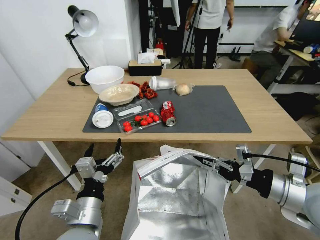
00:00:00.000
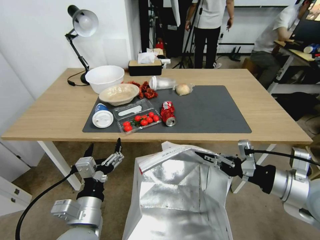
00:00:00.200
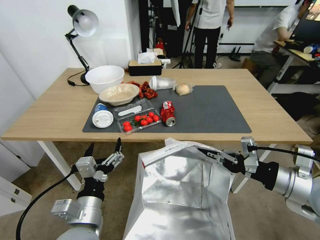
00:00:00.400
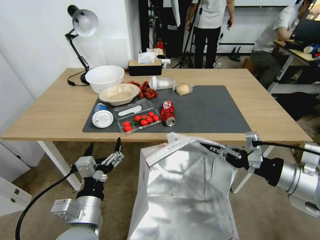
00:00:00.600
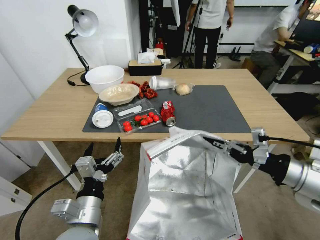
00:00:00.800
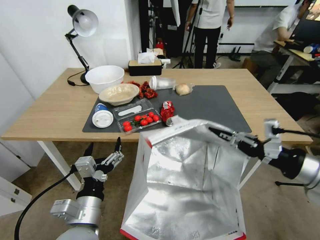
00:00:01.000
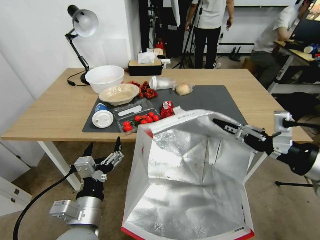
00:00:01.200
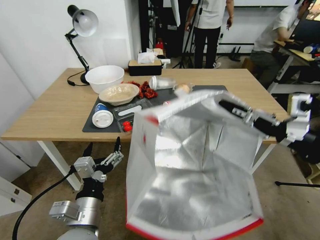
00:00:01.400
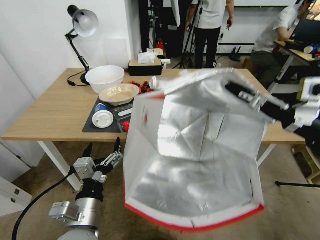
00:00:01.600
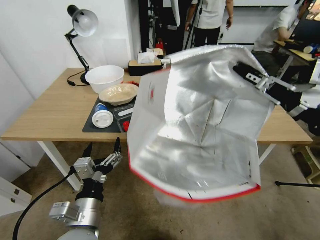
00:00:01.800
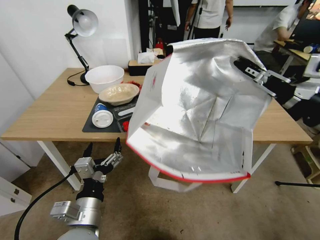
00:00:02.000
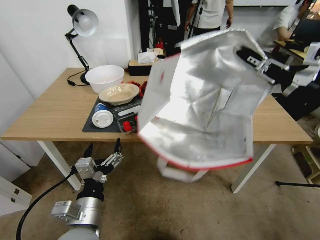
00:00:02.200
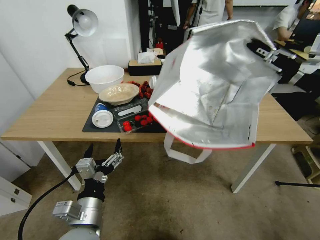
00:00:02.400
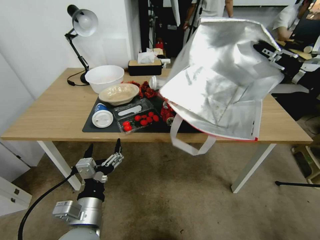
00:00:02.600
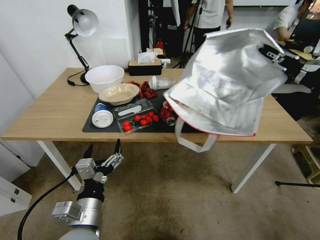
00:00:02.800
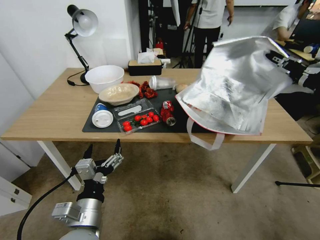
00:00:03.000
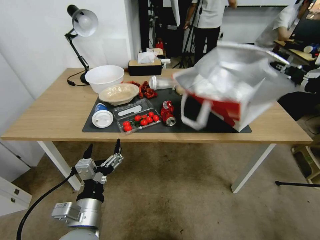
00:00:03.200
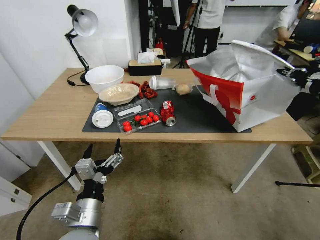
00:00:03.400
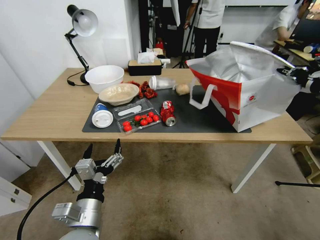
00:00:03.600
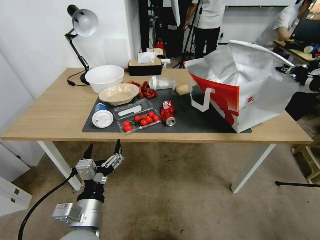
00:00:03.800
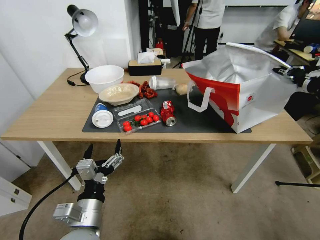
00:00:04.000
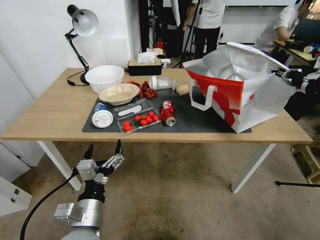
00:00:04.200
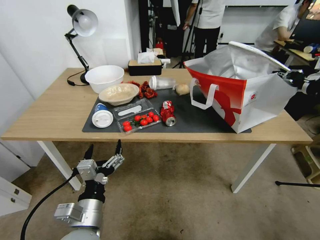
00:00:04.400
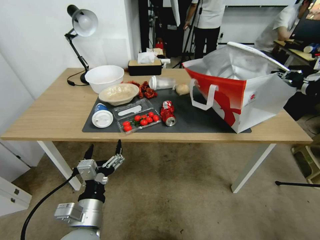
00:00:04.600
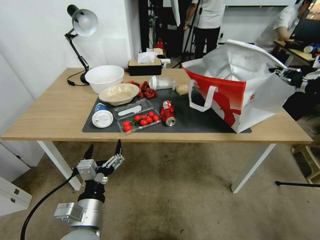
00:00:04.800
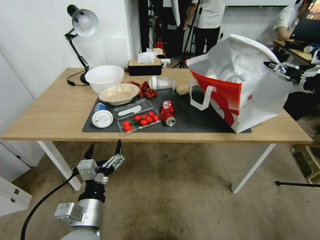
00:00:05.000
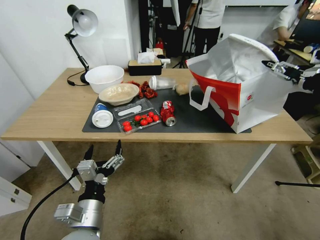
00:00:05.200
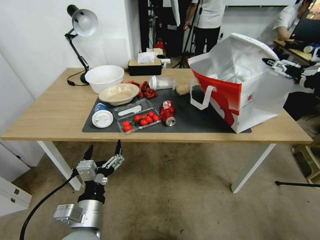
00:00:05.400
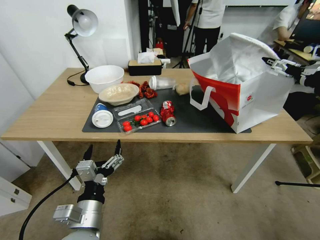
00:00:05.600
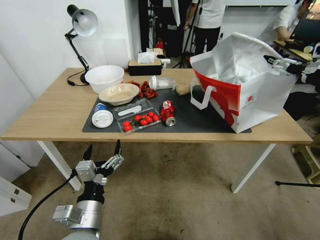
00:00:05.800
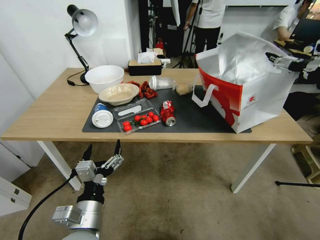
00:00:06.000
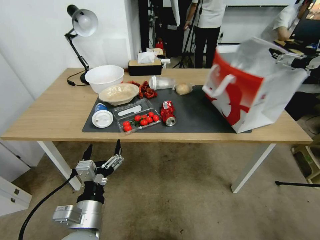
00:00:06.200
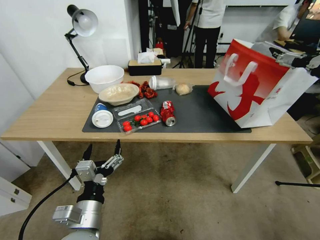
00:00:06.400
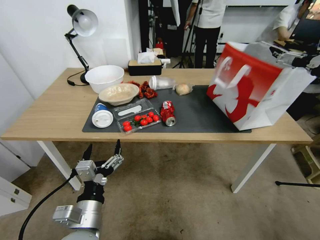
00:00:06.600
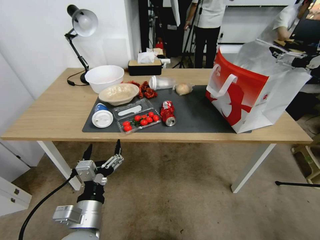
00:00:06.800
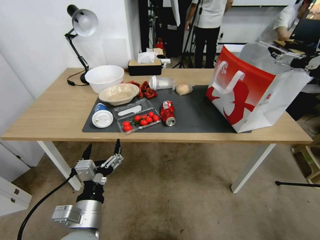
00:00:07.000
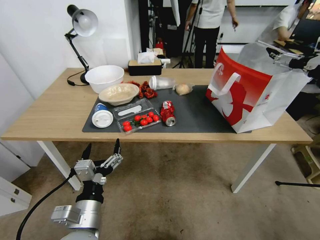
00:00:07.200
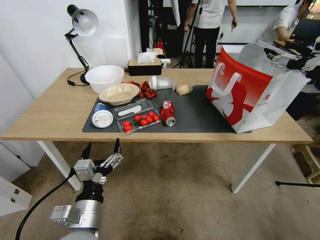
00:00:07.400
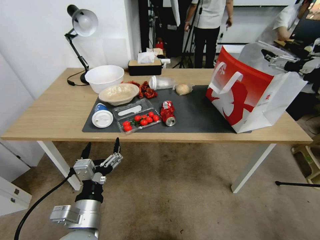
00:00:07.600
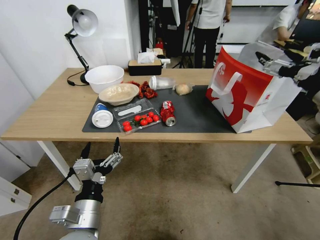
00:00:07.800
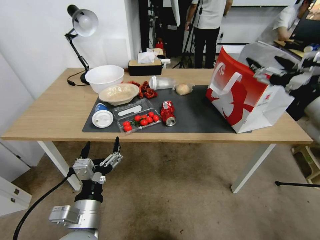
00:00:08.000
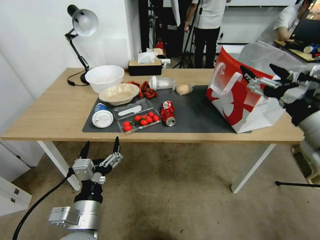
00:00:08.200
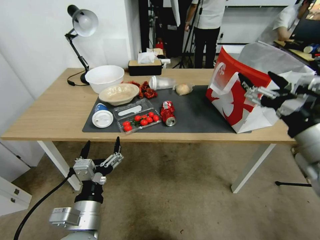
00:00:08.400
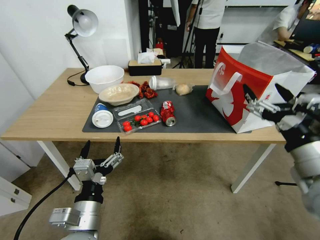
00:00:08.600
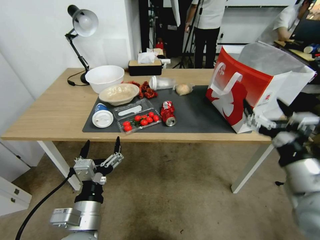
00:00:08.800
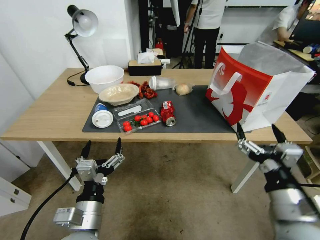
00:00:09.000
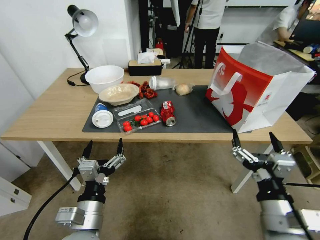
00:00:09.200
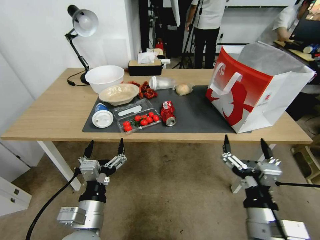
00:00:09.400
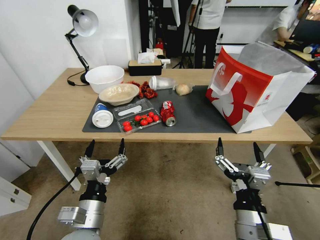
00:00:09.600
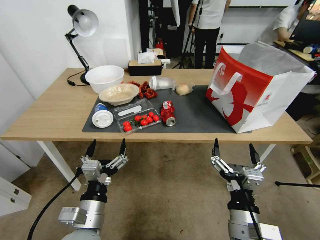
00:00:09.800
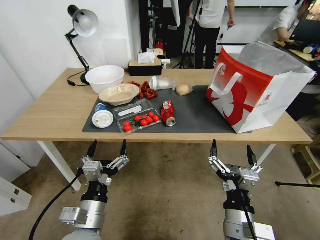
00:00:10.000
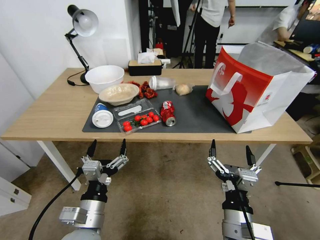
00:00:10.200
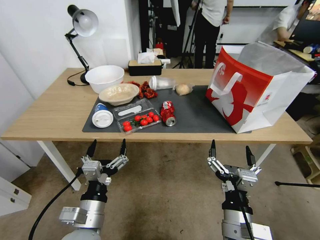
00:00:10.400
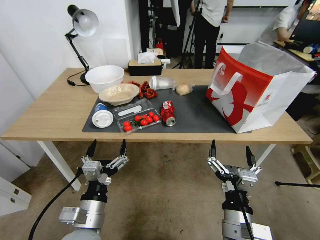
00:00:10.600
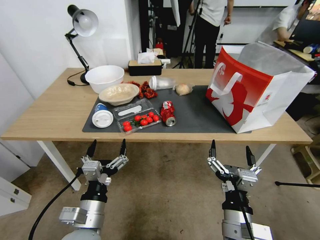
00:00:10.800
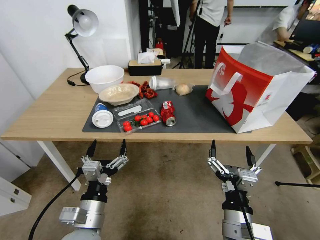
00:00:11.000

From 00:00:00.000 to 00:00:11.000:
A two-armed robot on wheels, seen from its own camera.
Task of the whole recording: Pick up the food delivery bag from the floor and place it on the table.
From 00:00:00.000 to 00:00:01.600: The right gripper moves upward, some 15 cm.
From 00:00:01.600 to 00:00:03.200: The right gripper travels forward and to the right by approximately 10 cm.
From 00:00:03.200 to 00:00:04.800: The grippers stay close to where they were, moving slightly.
From 00:00:04.800 to 00:00:06.200: The right gripper opens its fingers.
From 00:00:06.200 to 00:00:07.800: The right gripper ends up roughly 5 cm from where it was.
From 00:00:07.800 to 00:00:09.400: The right gripper shifts about 35 cm downward, backward and to the left.
From 00:00:09.400 to 00:00:11.000: The right gripper moves some 5 cm.
